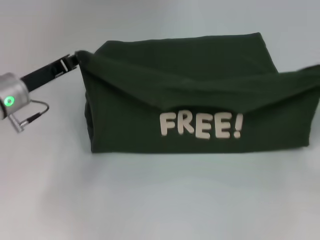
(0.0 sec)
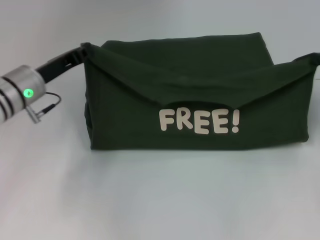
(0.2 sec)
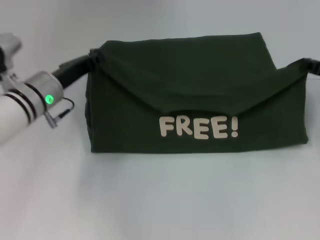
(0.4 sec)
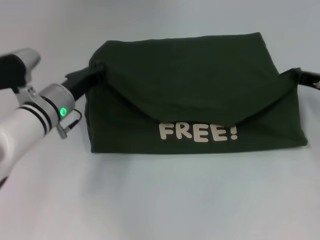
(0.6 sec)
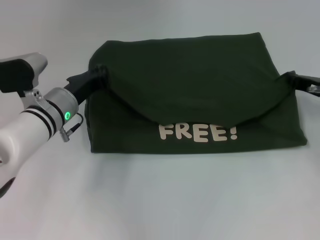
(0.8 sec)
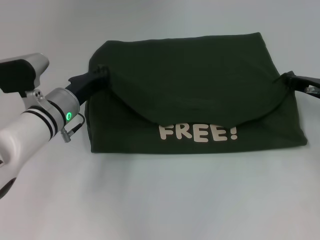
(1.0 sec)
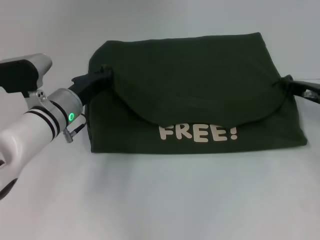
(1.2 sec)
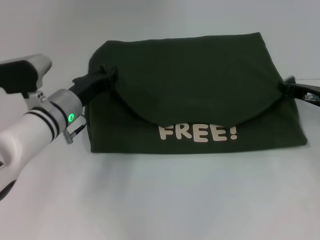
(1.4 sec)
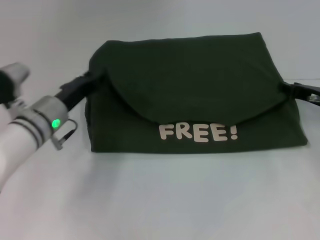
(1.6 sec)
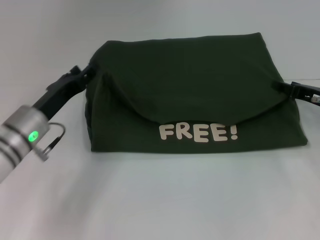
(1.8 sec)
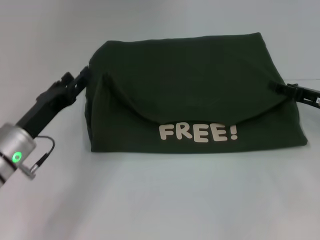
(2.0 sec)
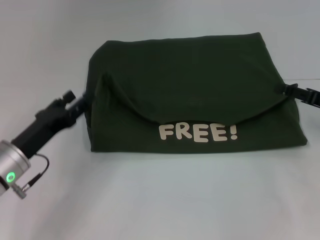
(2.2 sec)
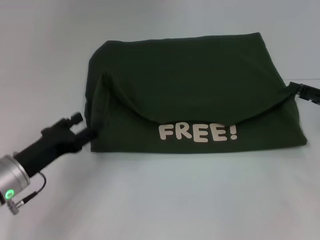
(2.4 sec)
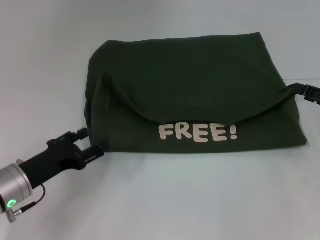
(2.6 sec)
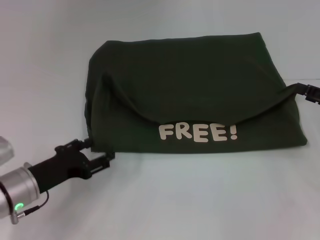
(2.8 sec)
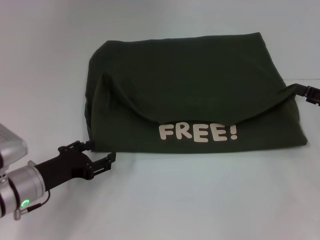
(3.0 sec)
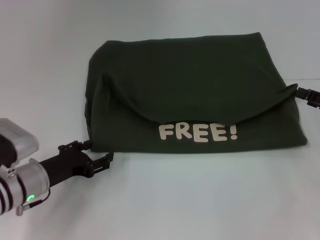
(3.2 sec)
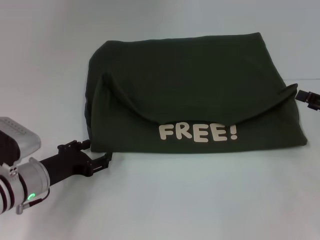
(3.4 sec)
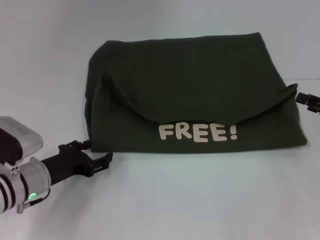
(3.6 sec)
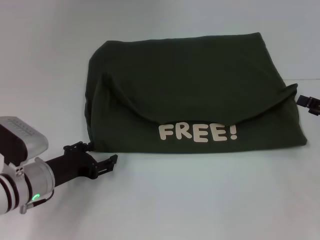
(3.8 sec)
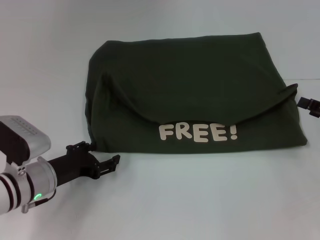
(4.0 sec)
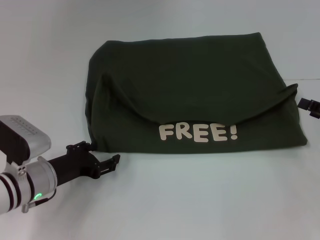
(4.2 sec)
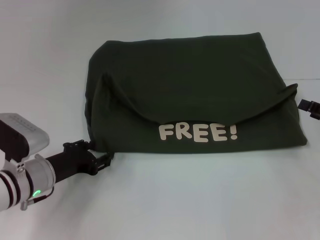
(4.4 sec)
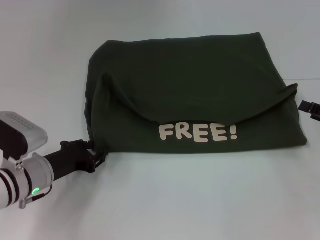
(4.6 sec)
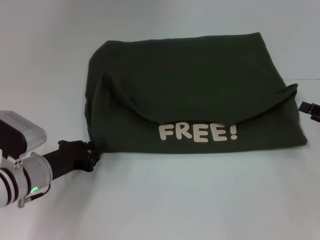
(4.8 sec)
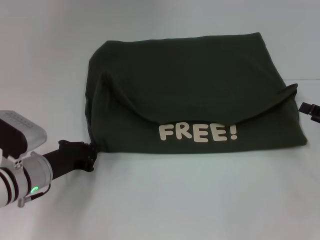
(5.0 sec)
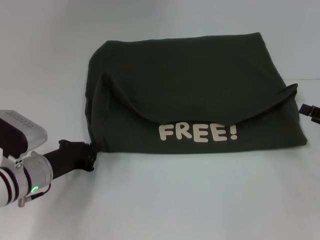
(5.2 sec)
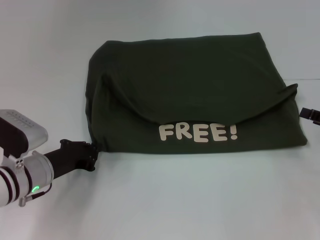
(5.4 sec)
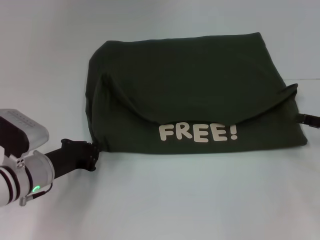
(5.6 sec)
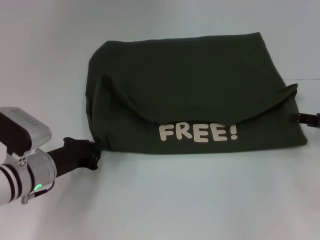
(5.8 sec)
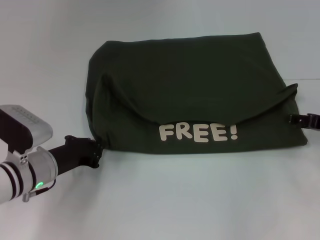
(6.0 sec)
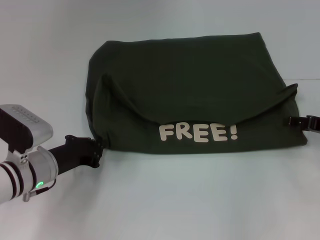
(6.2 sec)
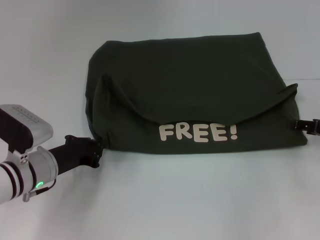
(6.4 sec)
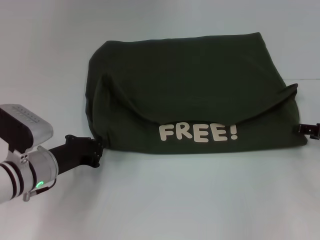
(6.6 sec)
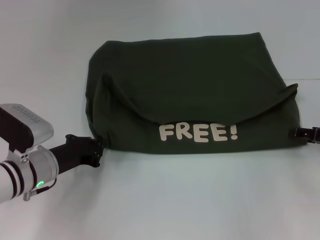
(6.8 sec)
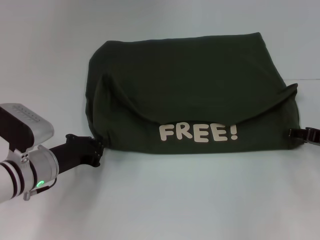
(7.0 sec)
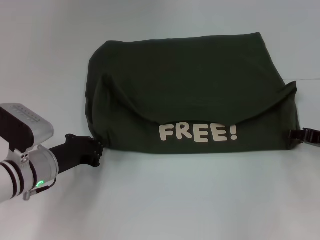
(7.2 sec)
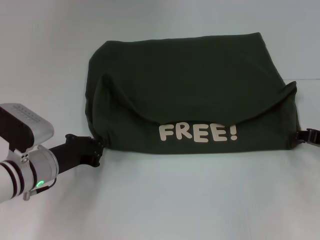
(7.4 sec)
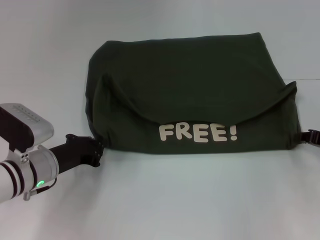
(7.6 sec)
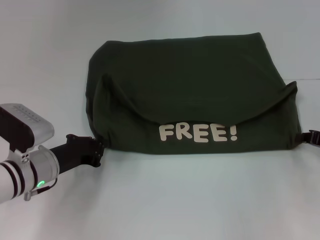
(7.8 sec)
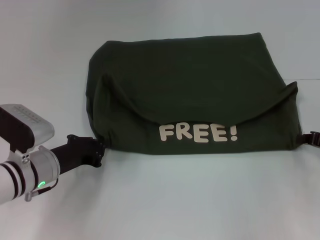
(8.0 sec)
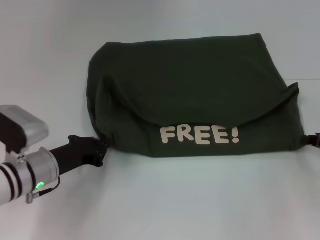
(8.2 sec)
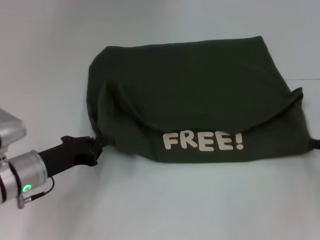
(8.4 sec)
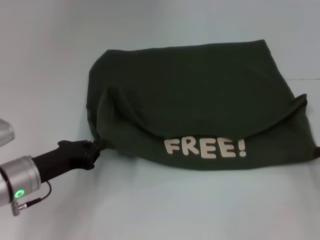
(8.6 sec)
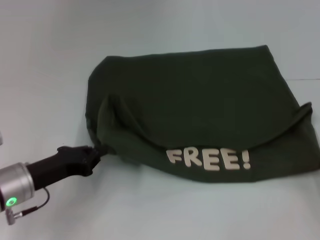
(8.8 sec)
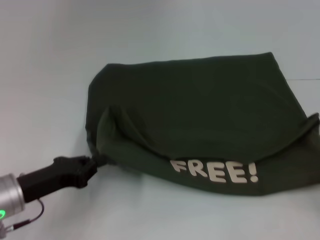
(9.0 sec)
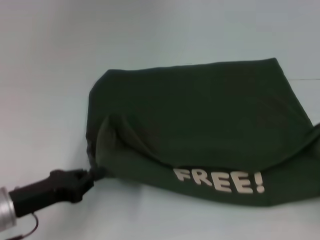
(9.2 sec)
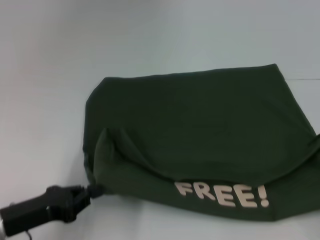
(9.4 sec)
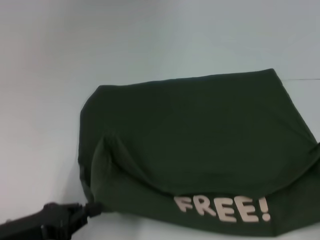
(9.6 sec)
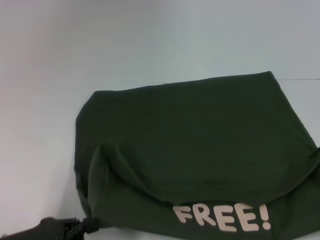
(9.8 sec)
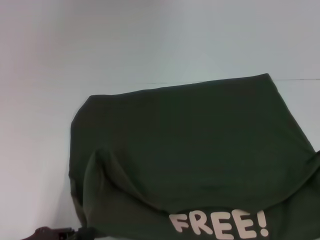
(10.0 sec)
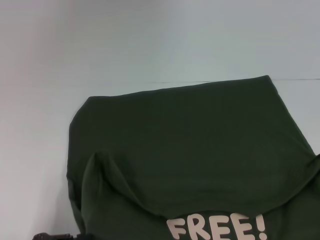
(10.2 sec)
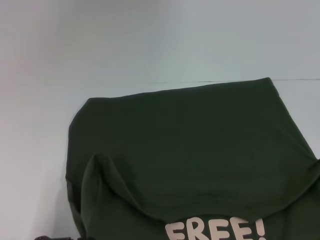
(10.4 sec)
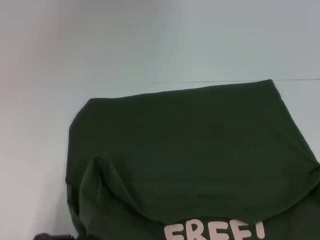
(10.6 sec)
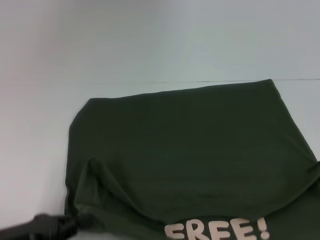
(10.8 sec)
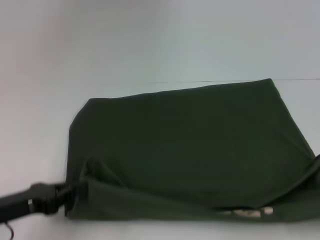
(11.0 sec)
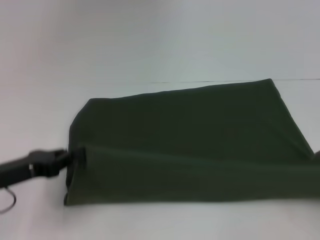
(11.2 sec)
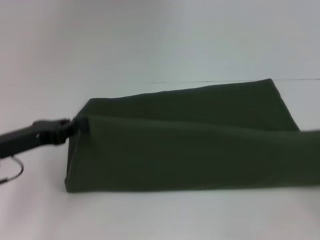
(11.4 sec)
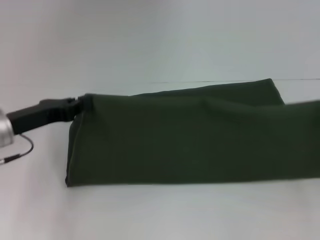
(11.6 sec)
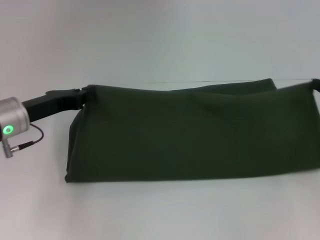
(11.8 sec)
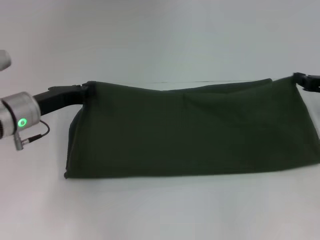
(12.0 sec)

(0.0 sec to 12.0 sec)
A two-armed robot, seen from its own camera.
Step, 1.8 sec - 10.2 sec: Pull the clothes with your left hand.
Step, 1.8 sec - 10.2 sec: Pull the clothes with your right hand.
0.0 sec - 1.6 sec: The right gripper travels to the left, downward and forward by approximately 10 cm, while the left gripper moves to the right and downward, roughly 10 cm, and opens up.
1.6 sec - 3.0 sec: The right gripper moves backward and to the right, about 10 cm, and opens its fingers, while the left gripper is displaced backward by approximately 10 cm, and opens its fingers.
3.0 sec - 4.4 sec: The grippers move only a little.
4.4 sec - 6.0 sec: The left gripper closes up.
6.0 sec - 7.6 sec: The right gripper closes up.
7.6 sec - 9.0 sec: The left gripper moves backward, roughly 5 cm; the right gripper heads backward and to the right, covering some 15 cm.
9.0 sec - 10.4 sec: Both grippers travel together backward, roughly 10 cm.
10.4 sec - 12.0 sec: Both grippers move forward, roughly 25 cm.

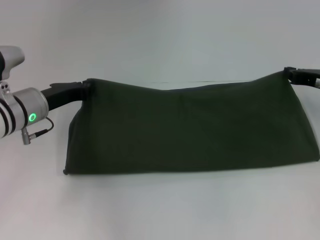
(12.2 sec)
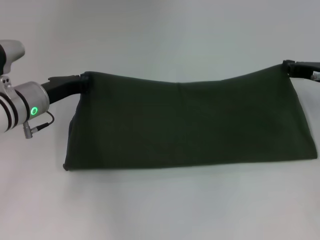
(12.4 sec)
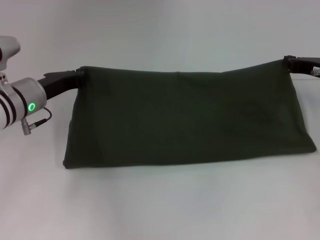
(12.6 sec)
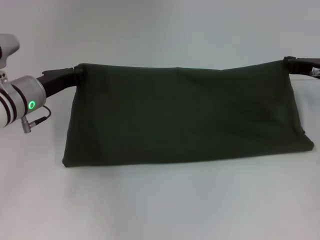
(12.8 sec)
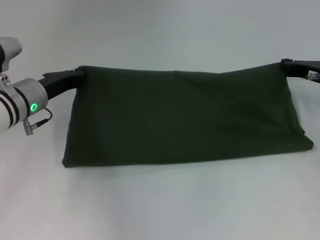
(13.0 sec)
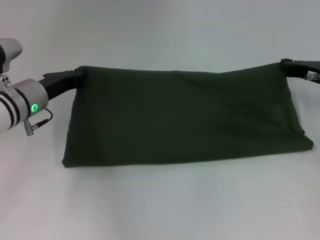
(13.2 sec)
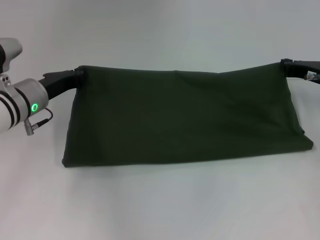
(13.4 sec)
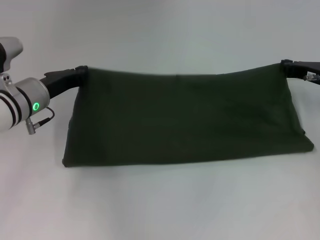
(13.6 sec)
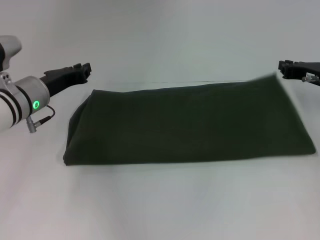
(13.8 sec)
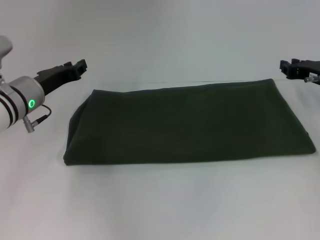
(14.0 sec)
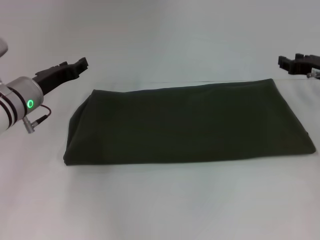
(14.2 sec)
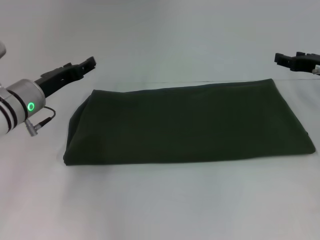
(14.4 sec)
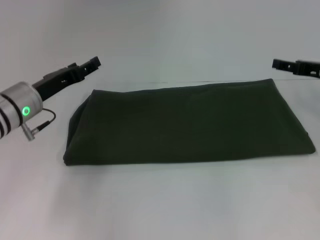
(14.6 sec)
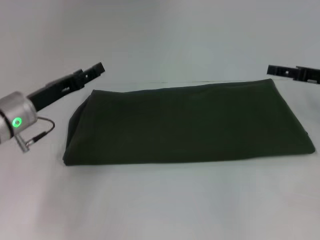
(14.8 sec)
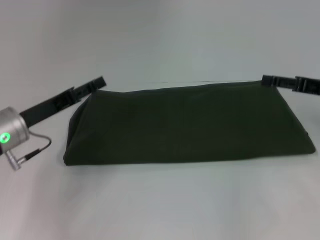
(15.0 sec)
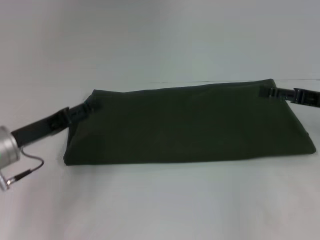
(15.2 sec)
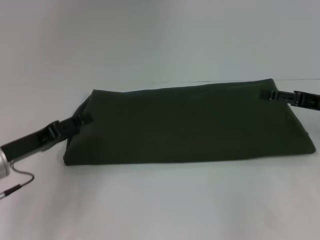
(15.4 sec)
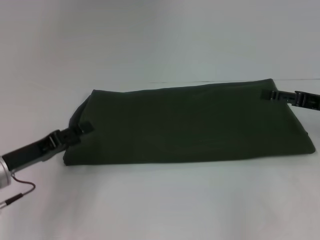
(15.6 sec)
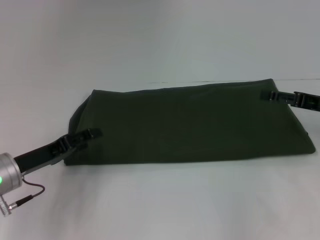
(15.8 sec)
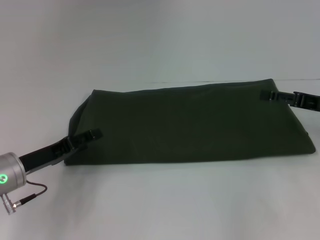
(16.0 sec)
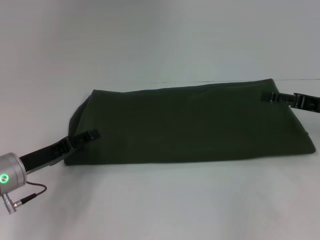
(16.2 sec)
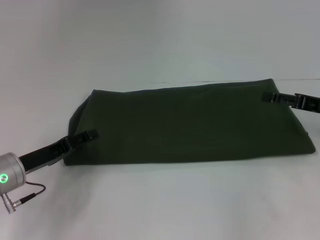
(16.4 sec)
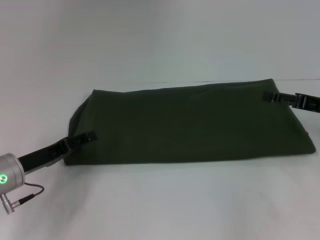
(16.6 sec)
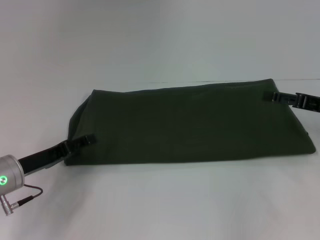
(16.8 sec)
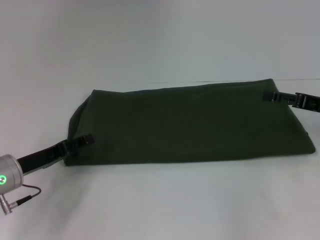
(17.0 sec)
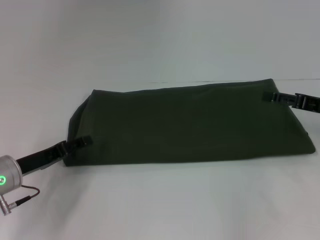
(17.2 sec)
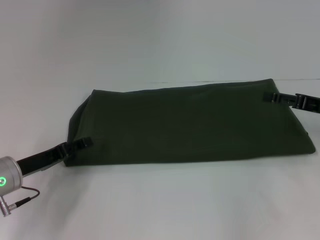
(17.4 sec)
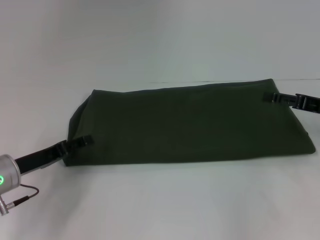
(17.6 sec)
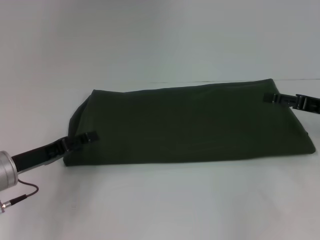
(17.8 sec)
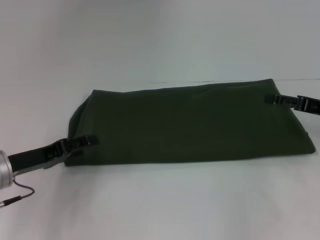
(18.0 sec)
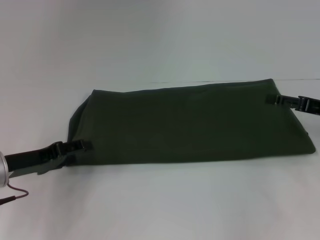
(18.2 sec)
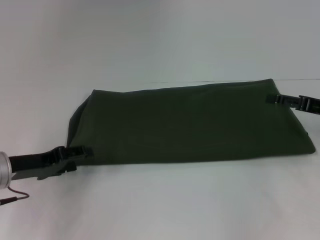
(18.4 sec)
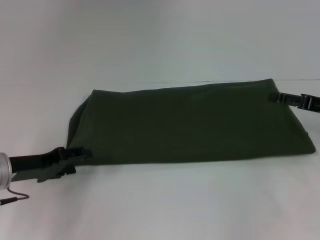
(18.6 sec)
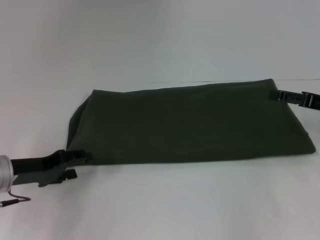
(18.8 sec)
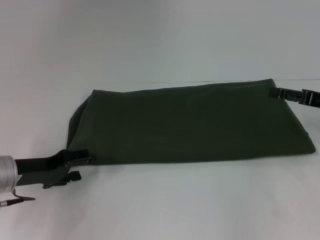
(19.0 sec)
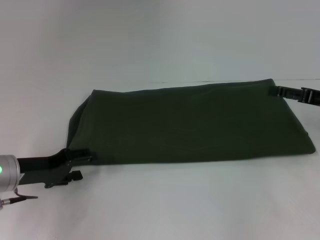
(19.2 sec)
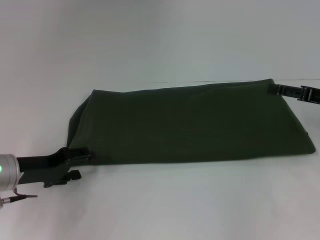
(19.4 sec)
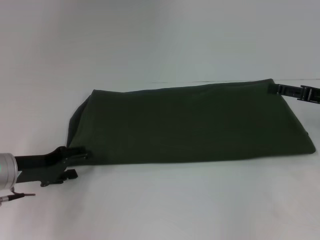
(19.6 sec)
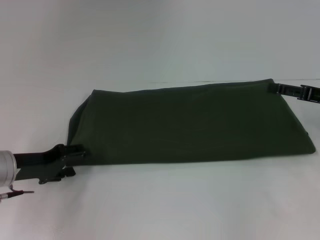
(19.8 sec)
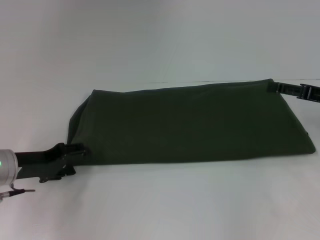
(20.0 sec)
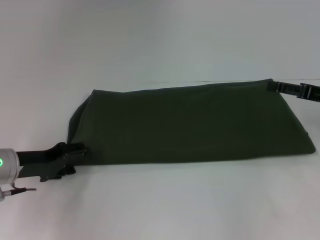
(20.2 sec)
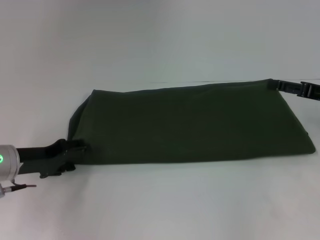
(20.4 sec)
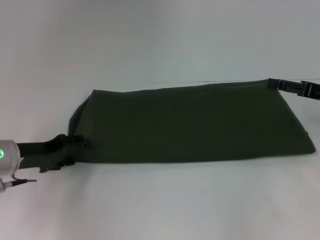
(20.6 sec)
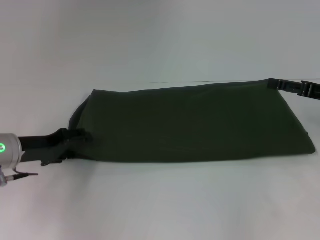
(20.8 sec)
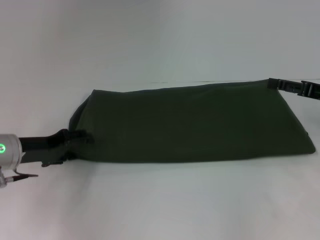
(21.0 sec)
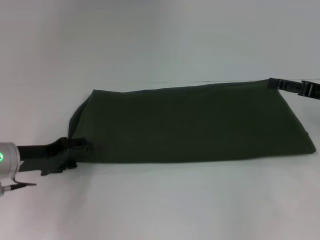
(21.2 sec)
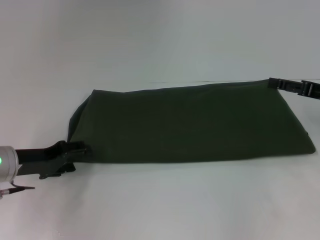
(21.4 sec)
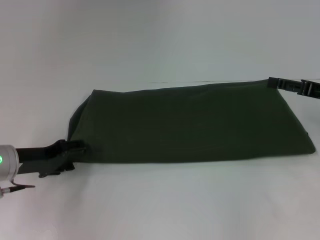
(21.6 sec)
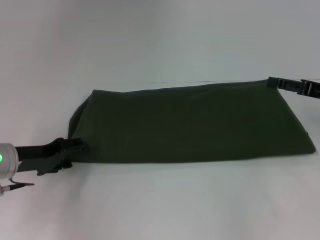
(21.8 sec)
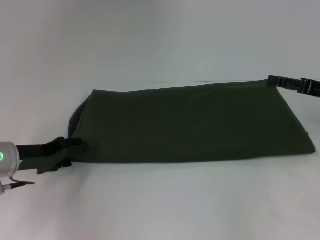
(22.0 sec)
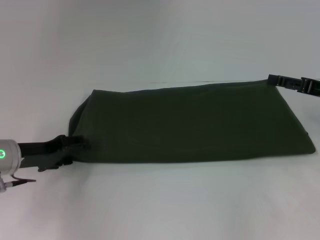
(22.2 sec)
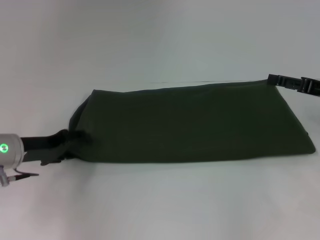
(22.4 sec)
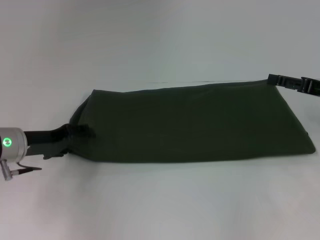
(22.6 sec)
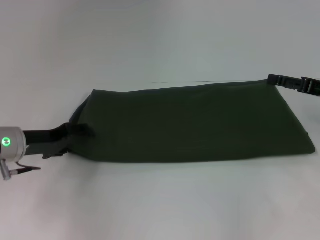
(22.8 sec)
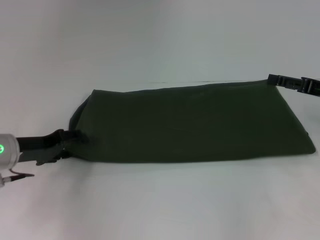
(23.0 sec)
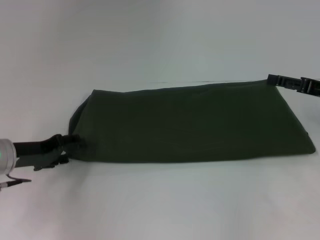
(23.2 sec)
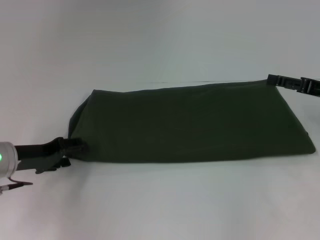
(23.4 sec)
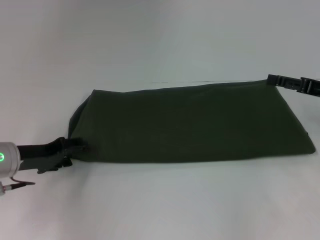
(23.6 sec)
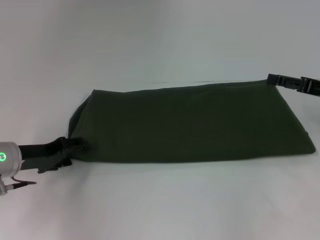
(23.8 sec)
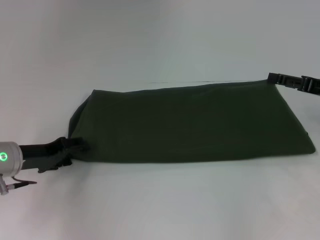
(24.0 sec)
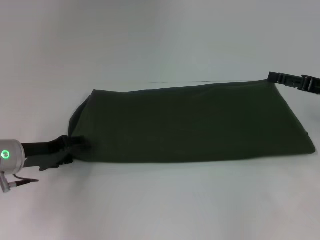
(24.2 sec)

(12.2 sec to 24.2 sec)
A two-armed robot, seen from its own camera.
12.2 sec - 13.8 sec: There are only small adjustments of the grippers.
13.8 sec - 15.2 sec: Both grippers move backward, some 10 cm. The right gripper opens up. Meanwhile the left gripper opens up.
15.2 sec - 16.6 sec: The grippers make only small movements.
16.6 sec - 18.2 sec: The grippers move only a little.
18.2 sec - 24.2 sec: The grippers move only a little.
